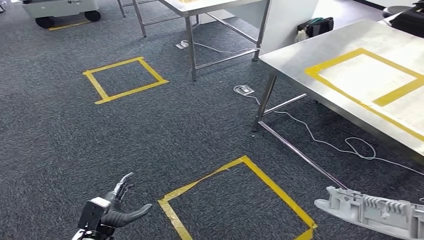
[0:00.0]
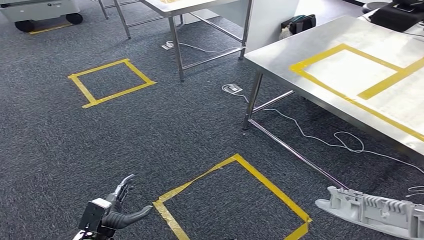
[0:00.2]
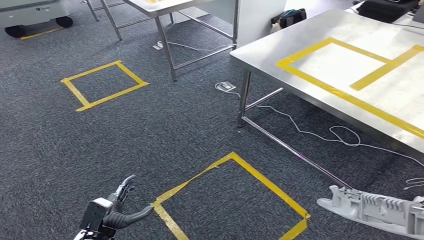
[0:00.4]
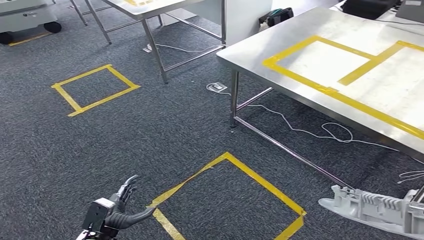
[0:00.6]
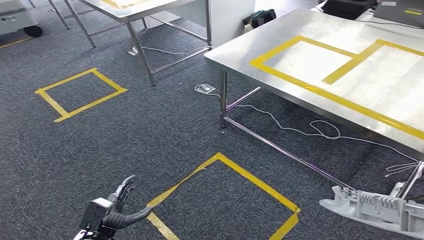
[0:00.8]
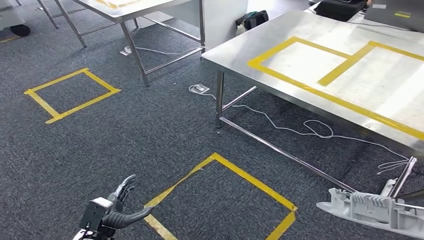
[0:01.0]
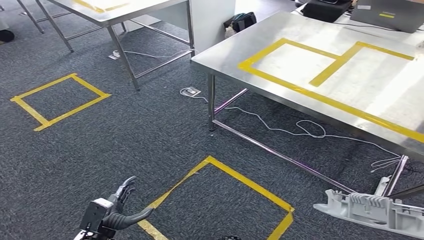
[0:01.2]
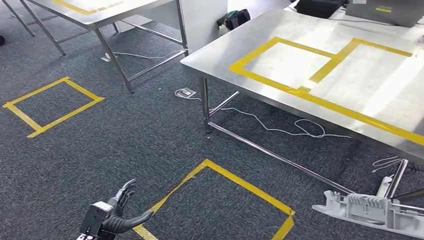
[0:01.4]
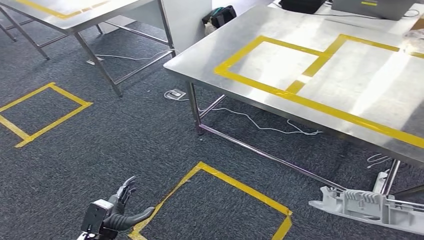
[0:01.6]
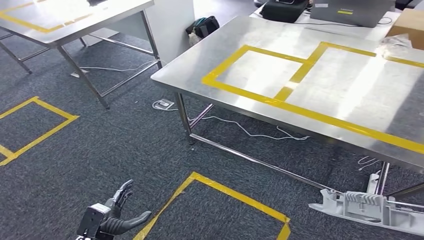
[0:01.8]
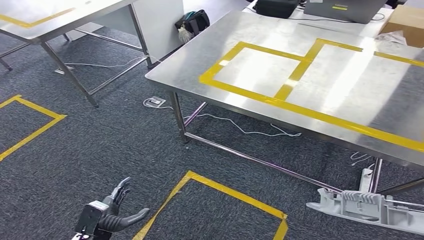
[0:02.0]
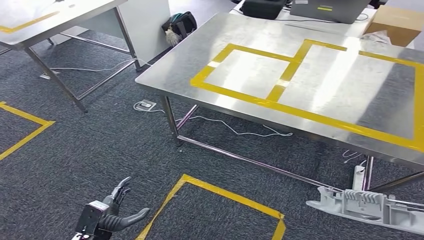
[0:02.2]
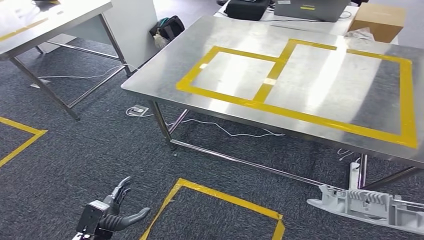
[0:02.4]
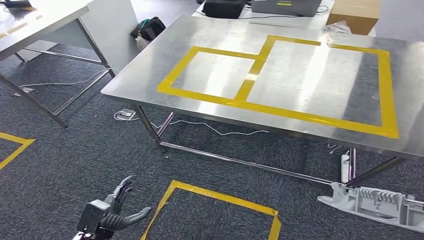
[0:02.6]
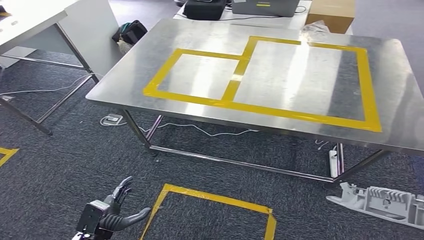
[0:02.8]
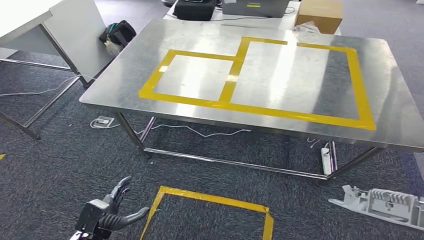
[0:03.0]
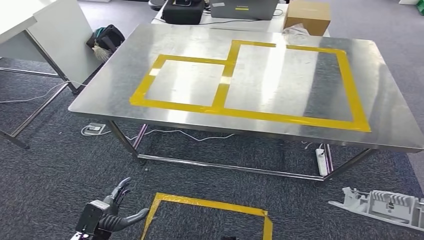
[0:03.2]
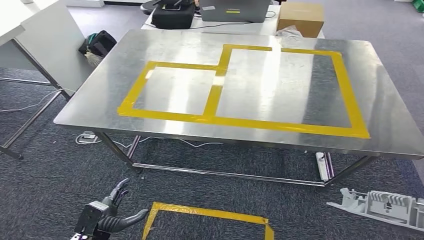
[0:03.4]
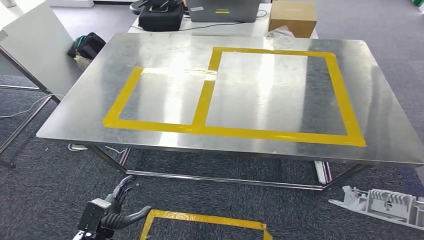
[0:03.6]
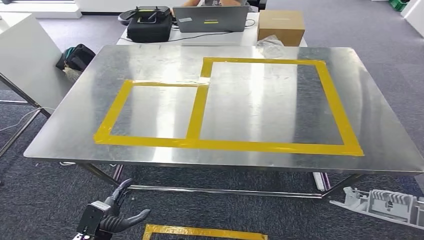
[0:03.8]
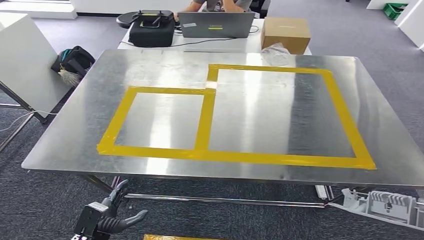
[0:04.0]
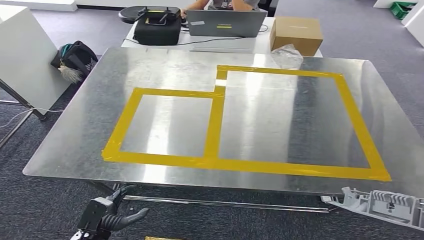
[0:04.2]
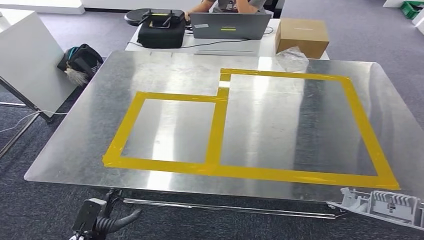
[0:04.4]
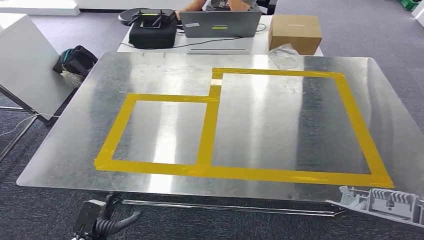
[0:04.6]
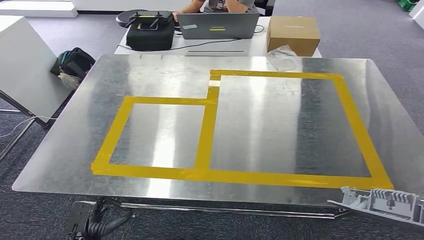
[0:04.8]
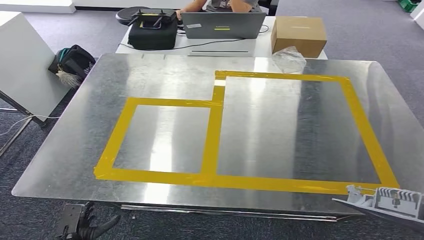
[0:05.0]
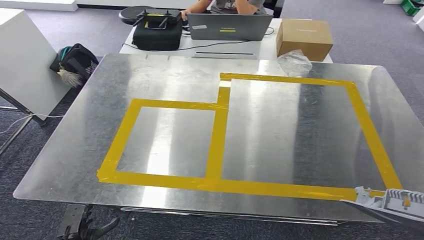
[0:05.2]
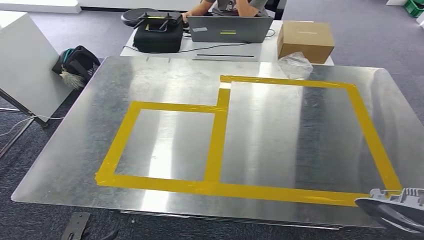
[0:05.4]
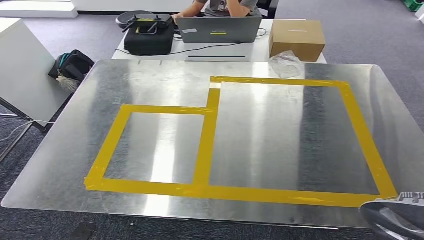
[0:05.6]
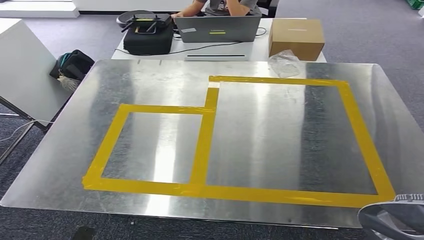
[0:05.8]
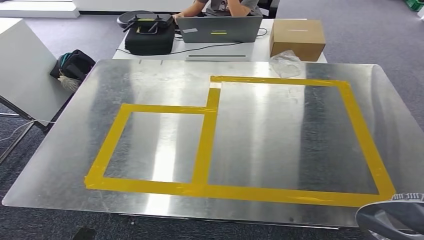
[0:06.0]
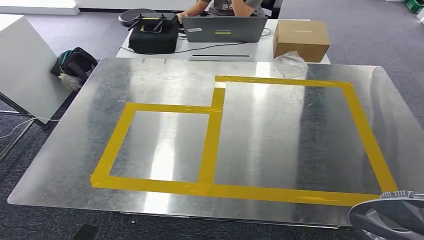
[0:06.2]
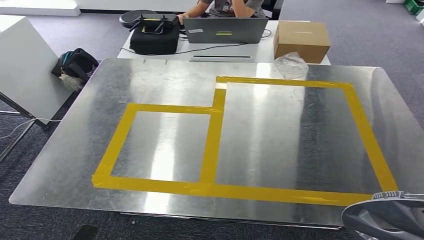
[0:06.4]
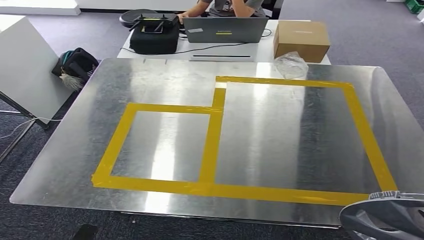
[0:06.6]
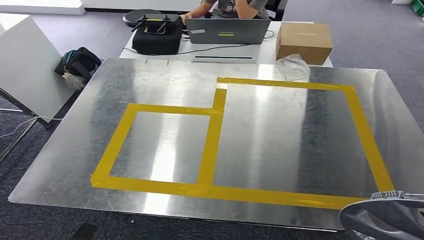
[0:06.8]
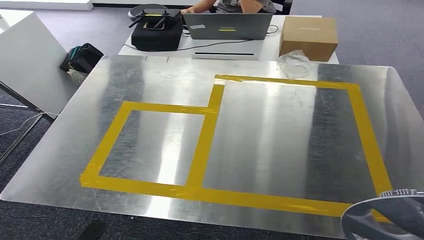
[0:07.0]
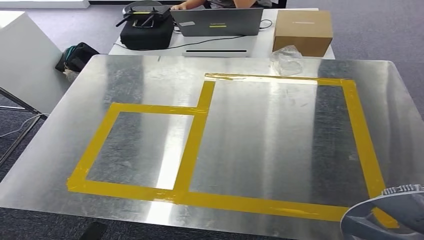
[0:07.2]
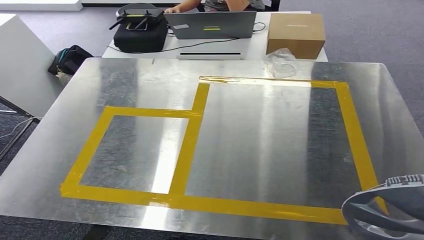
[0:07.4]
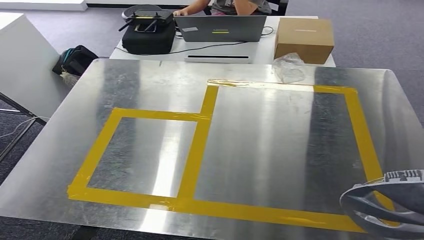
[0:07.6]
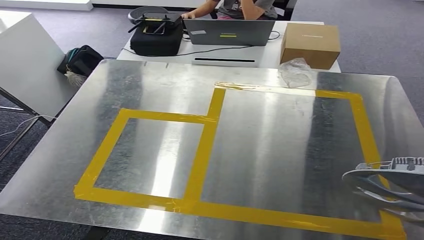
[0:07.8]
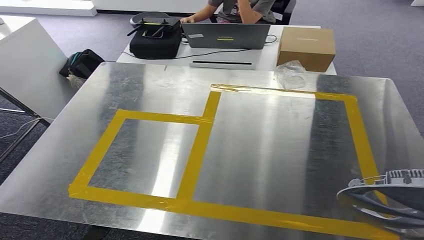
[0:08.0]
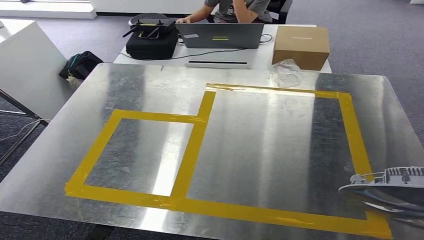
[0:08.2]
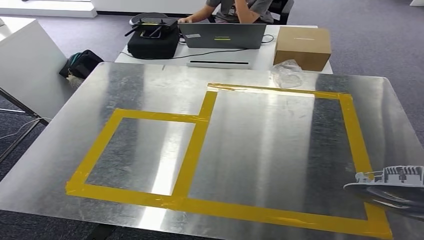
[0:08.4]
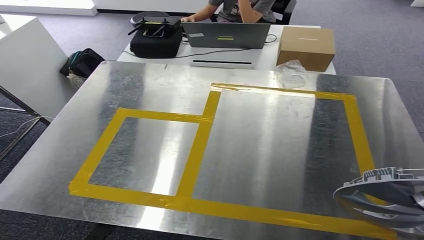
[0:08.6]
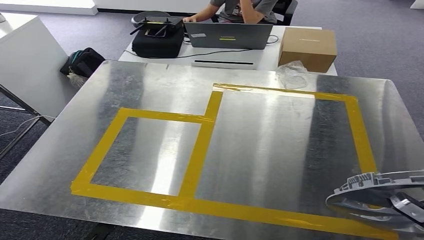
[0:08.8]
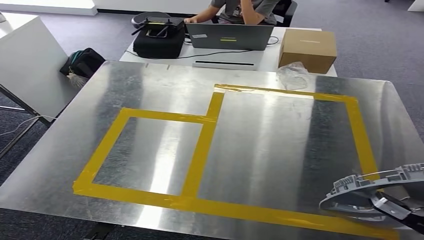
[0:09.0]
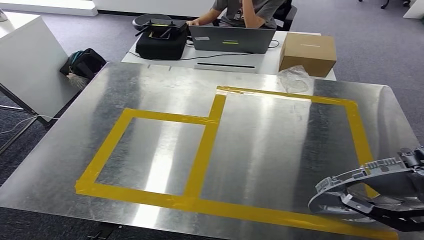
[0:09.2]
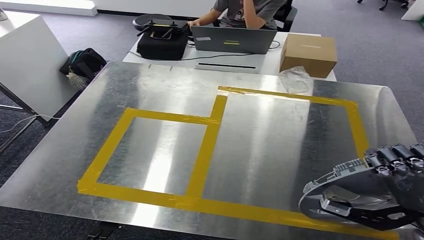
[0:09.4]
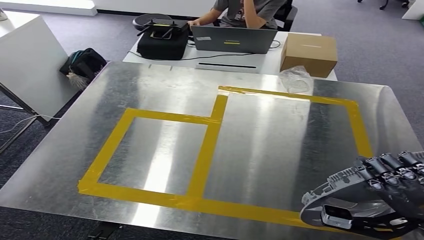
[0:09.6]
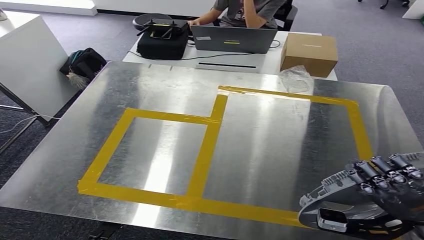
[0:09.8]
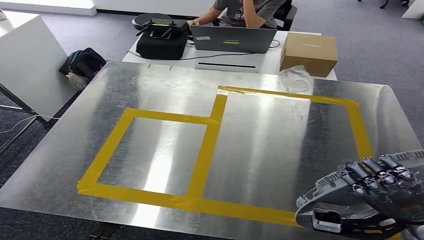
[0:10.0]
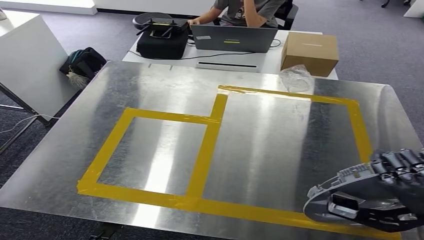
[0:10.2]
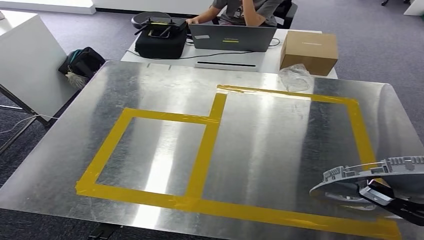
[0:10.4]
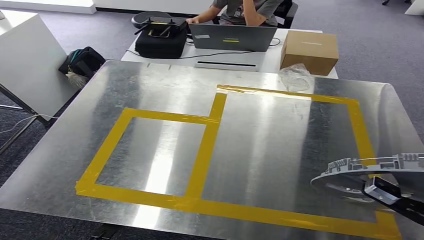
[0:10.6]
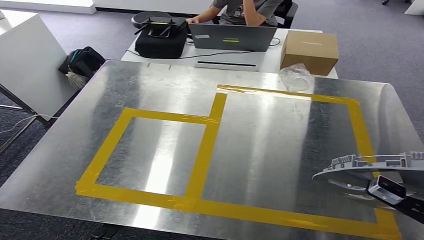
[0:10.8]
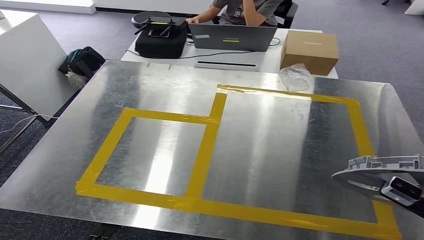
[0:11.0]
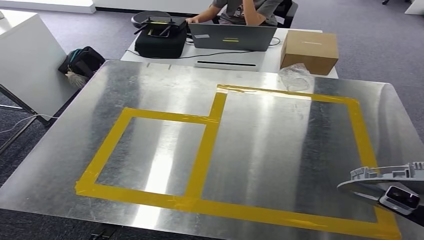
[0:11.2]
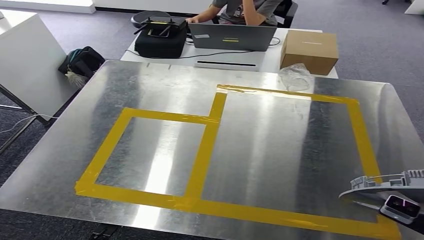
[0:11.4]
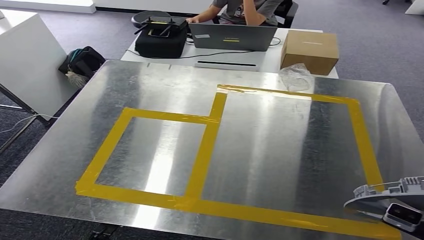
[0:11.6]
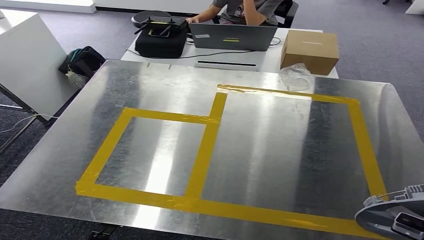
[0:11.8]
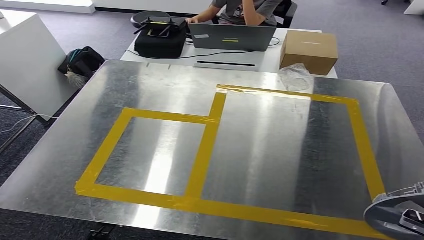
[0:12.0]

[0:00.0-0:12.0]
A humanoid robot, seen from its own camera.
Step, 0:00.0 to 0:04.4: Move the small component to the workbench.
0:10.4 to 0:12.0: The right hand travels to the right by roughly 5 cm.

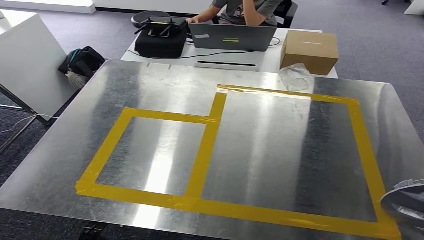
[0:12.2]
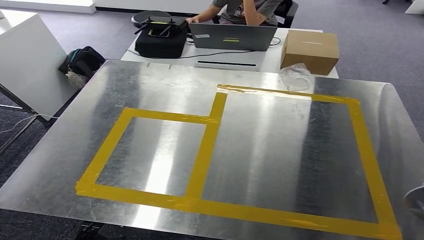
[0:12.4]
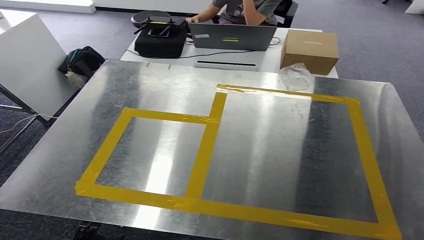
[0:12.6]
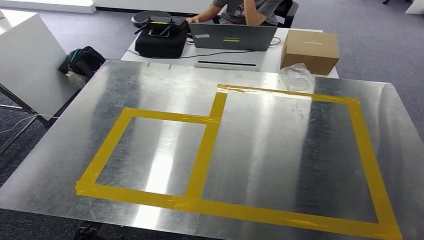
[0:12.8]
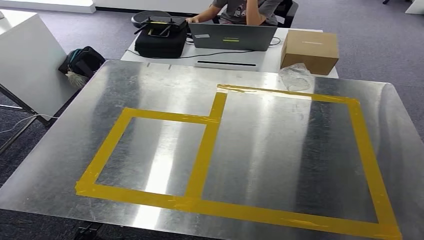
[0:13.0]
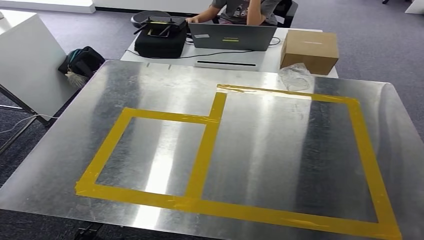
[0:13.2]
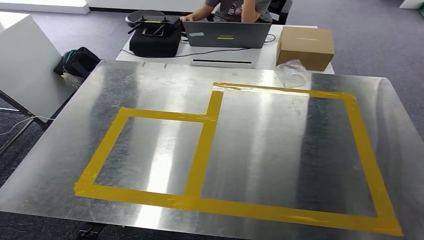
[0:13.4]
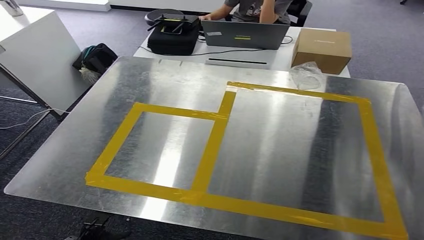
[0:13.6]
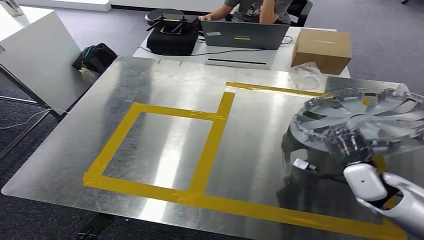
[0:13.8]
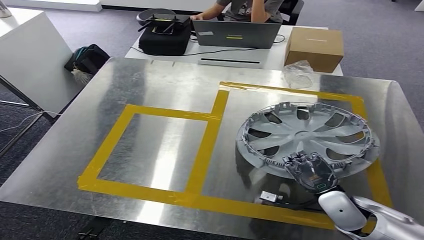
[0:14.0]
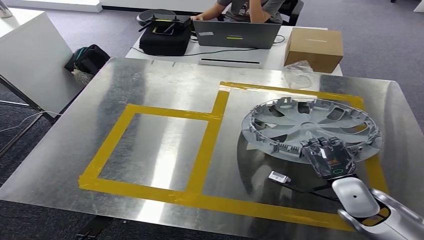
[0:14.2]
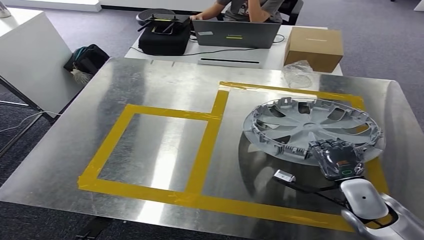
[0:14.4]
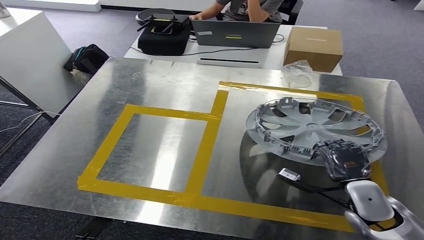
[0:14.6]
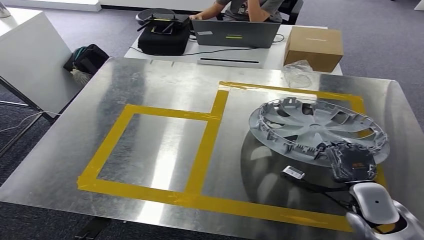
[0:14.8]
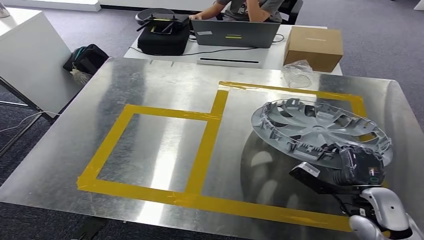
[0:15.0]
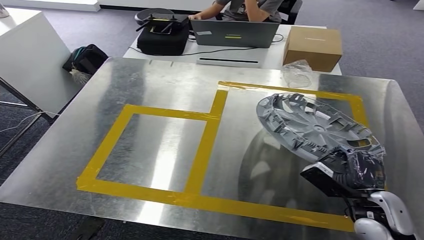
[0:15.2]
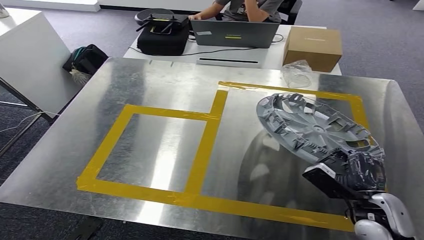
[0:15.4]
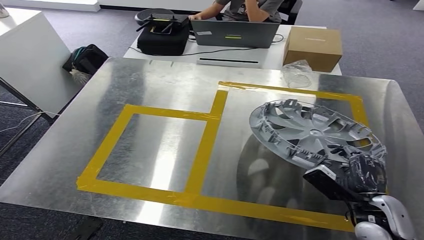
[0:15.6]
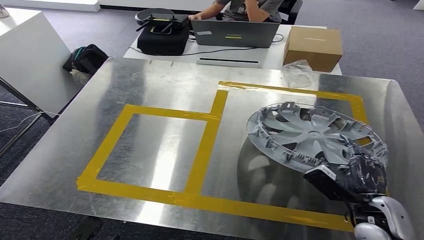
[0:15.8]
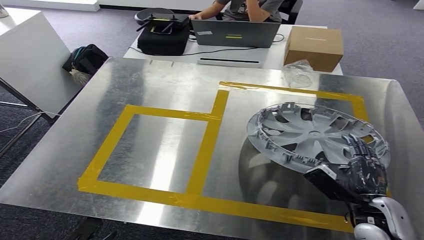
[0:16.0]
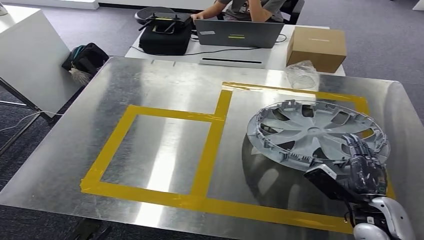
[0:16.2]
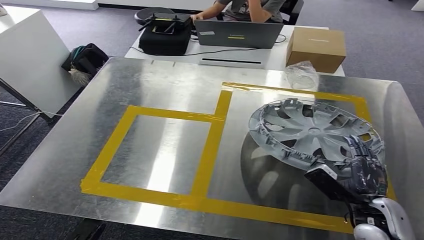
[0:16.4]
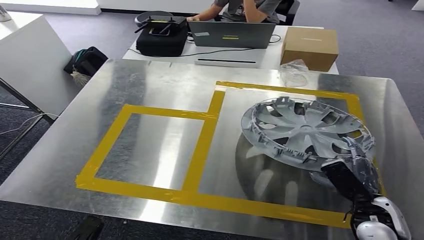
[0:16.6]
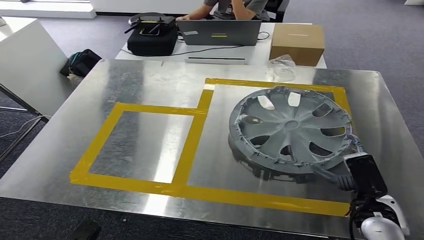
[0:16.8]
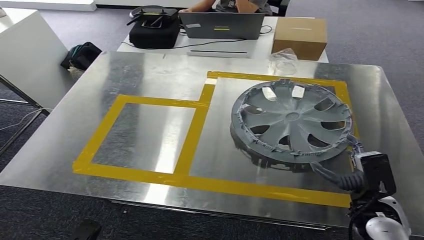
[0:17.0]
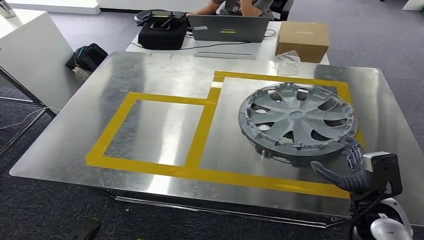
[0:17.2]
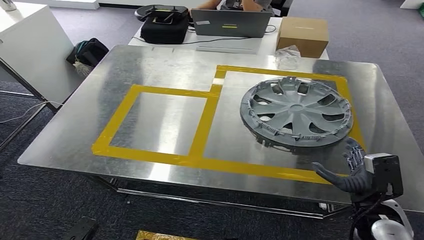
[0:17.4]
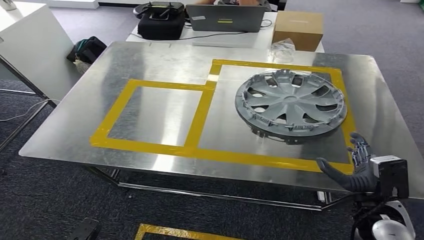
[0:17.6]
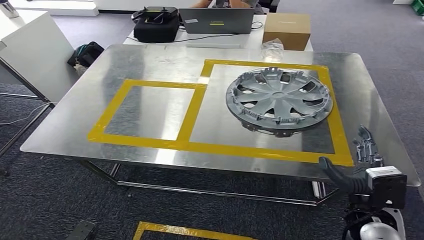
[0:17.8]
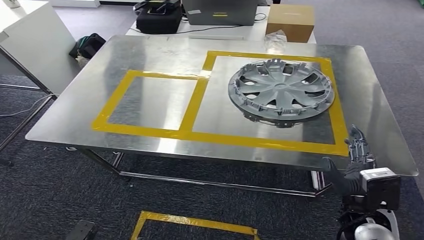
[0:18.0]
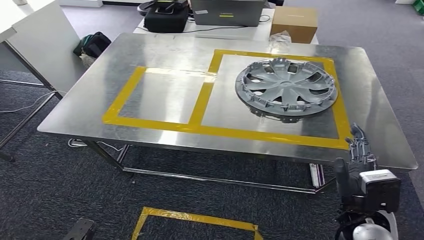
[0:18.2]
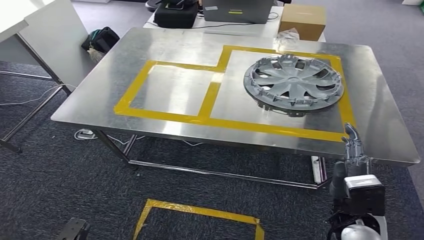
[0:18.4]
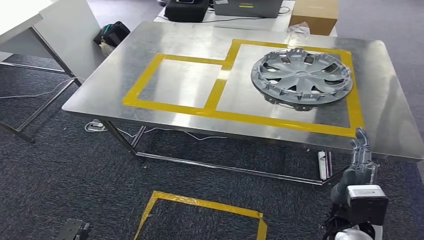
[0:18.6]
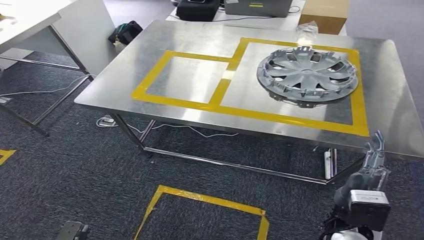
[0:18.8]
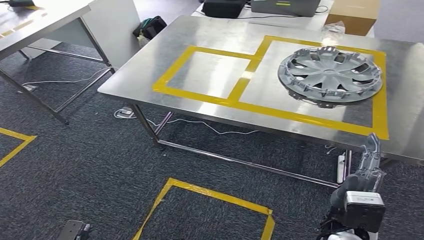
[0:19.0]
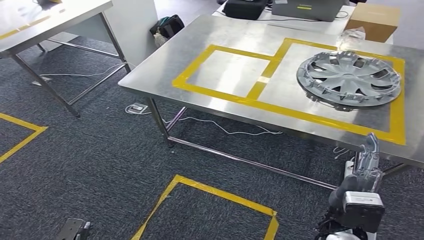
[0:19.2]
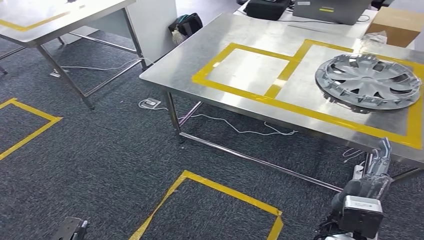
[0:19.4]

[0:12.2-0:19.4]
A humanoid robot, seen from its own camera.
Step, 0:12.2 to 0:18.0: Insert the small component into the corresponding slot on the workbench.
